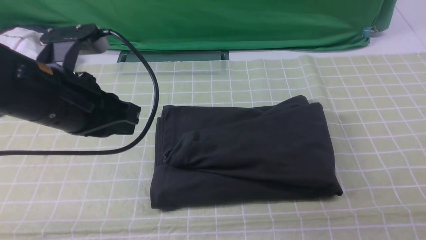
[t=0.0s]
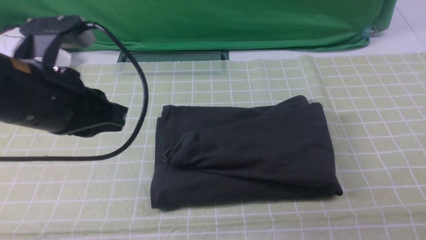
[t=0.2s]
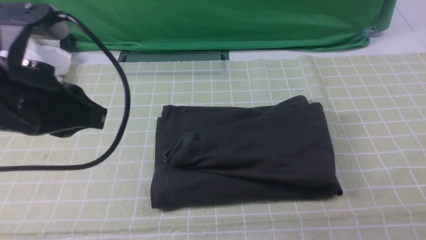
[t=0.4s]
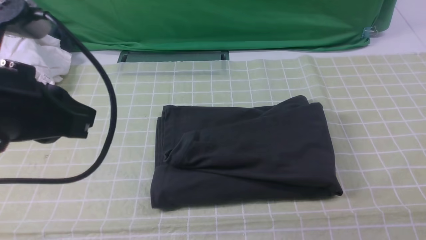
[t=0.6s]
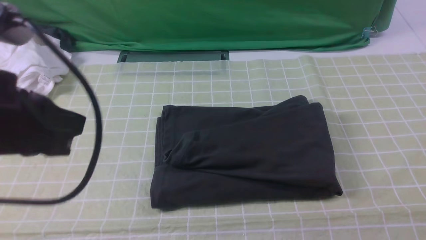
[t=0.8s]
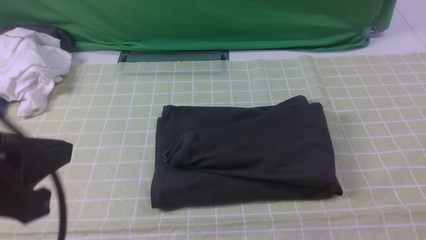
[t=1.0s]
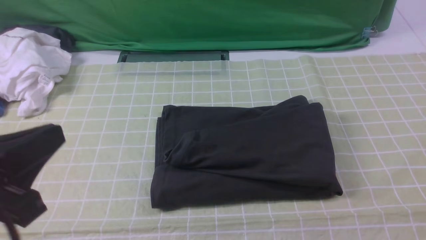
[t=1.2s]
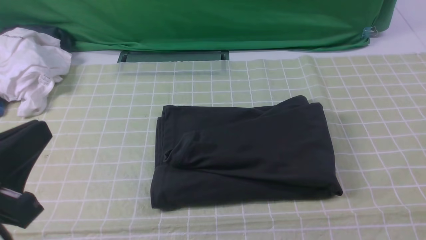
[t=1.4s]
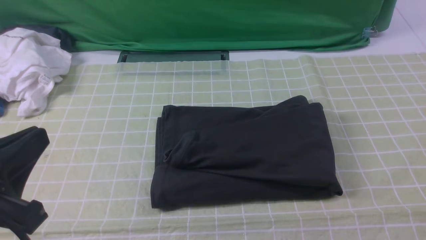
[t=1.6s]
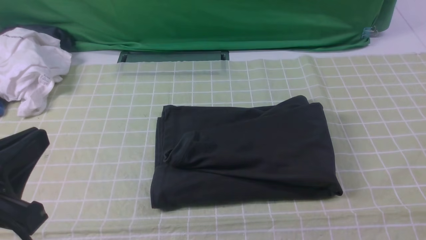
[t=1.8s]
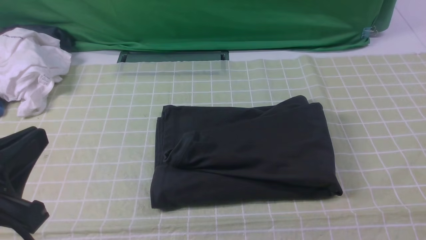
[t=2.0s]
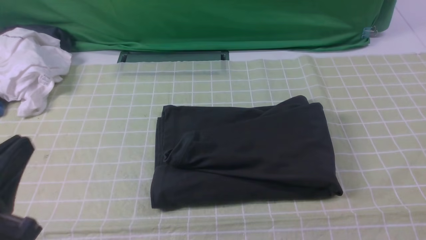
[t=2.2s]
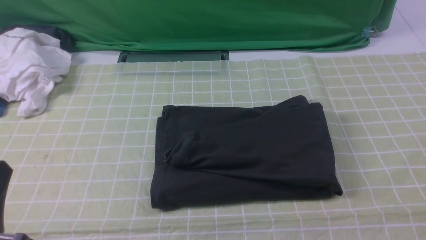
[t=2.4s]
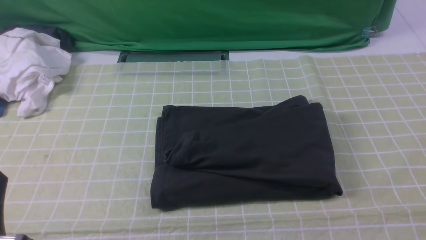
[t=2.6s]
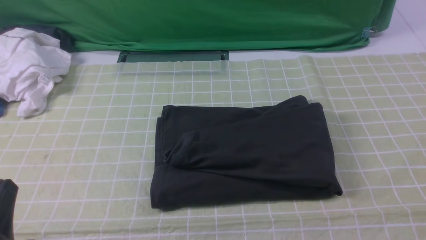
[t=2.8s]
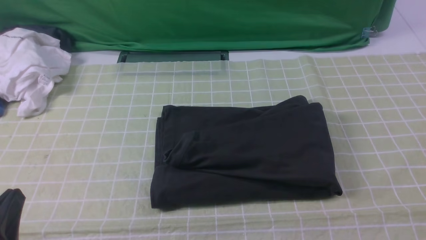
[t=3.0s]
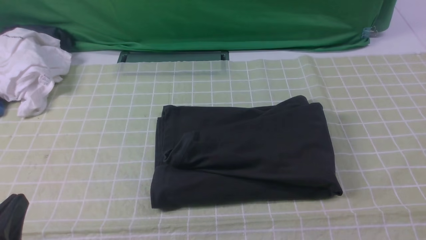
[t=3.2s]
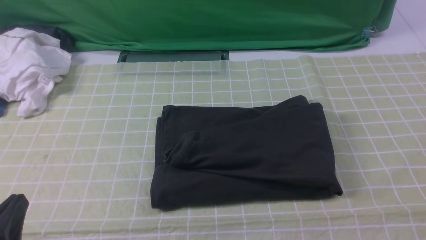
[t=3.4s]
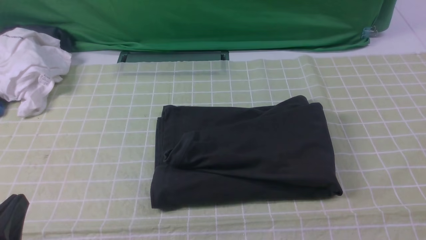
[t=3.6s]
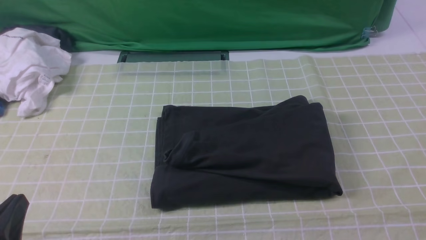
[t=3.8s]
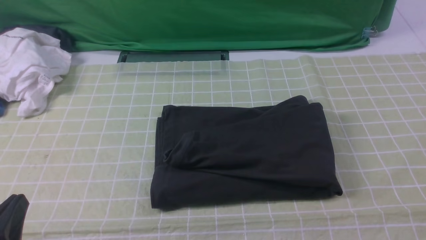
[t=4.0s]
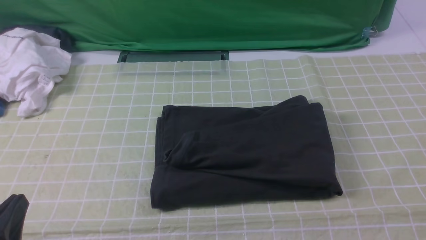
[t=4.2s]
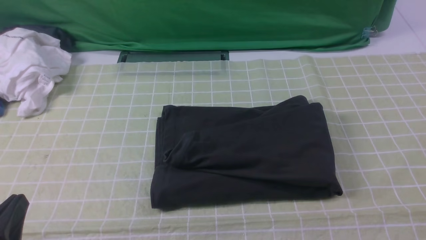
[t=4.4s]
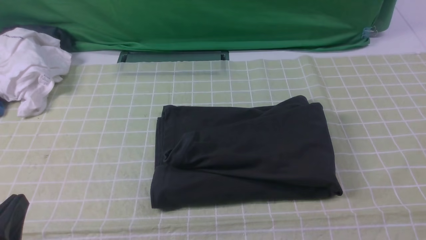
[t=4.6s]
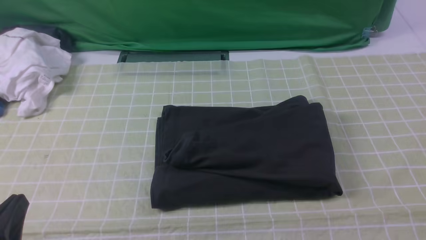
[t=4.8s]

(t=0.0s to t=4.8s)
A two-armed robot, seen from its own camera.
t=0.0s - t=1.6s: The left gripper heads backward, covering roughly 15 cm.
t=1.6s - t=3.2s: The left gripper travels downward by roughly 10 cm.
t=3.2s - t=4.8s: The two grippers keep their place.
